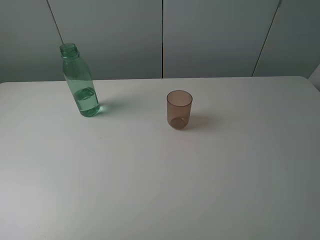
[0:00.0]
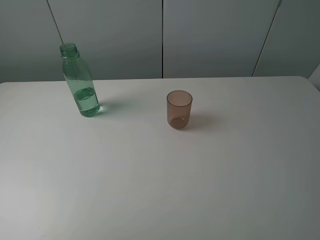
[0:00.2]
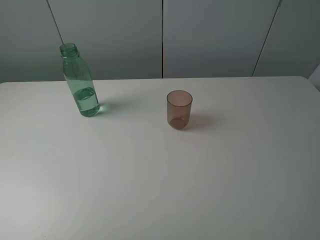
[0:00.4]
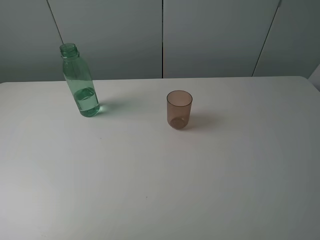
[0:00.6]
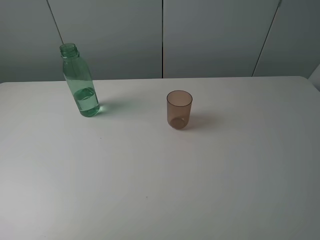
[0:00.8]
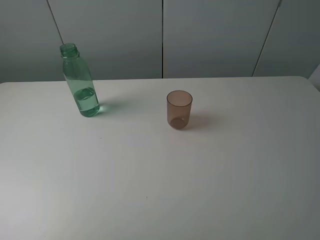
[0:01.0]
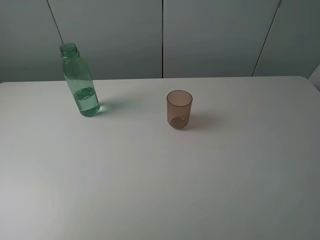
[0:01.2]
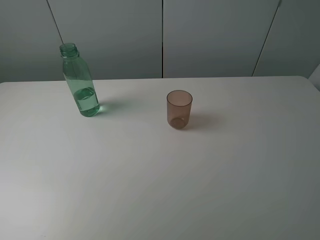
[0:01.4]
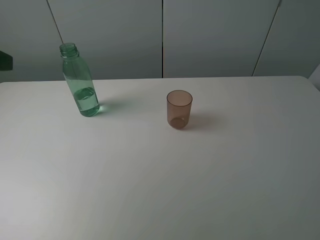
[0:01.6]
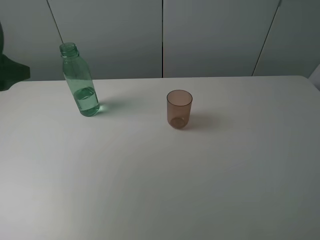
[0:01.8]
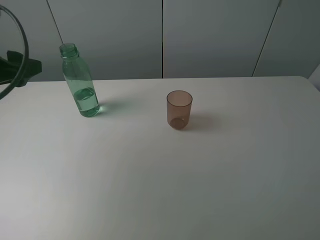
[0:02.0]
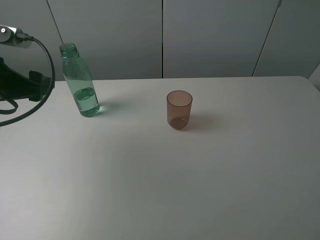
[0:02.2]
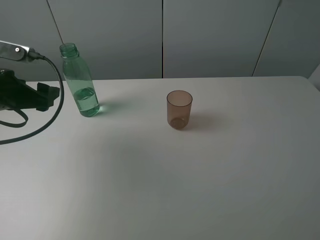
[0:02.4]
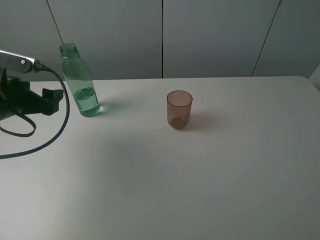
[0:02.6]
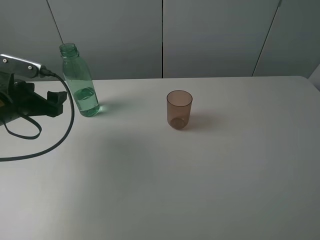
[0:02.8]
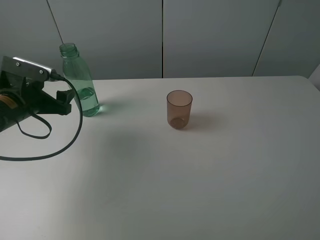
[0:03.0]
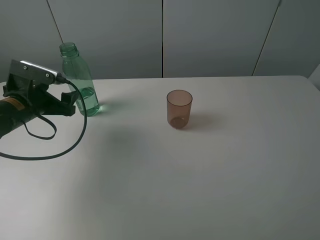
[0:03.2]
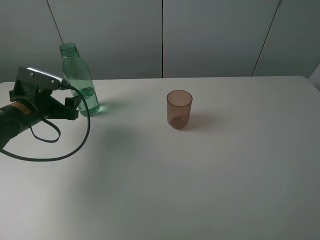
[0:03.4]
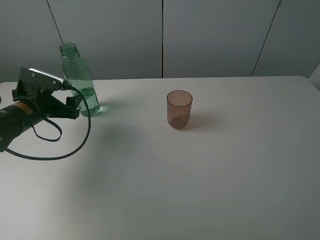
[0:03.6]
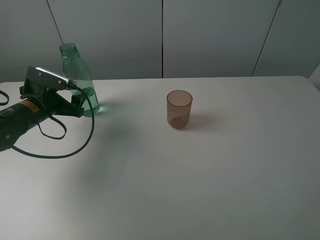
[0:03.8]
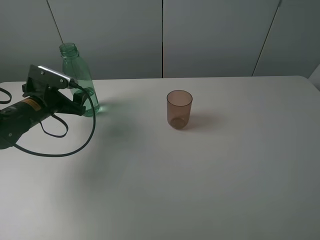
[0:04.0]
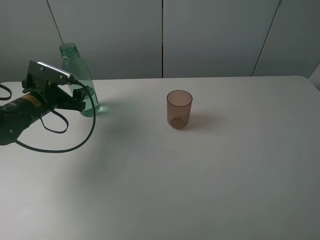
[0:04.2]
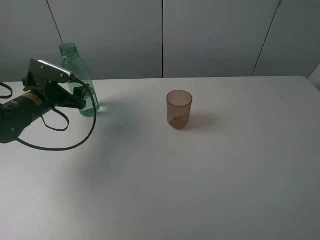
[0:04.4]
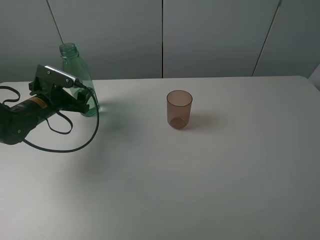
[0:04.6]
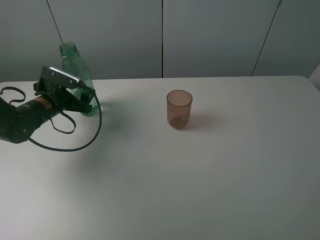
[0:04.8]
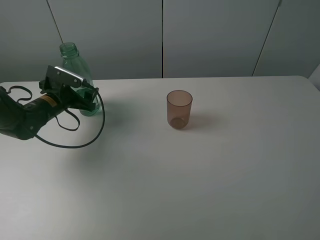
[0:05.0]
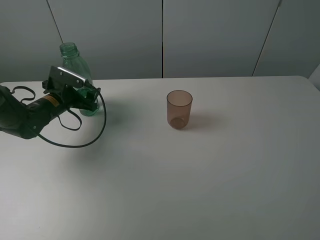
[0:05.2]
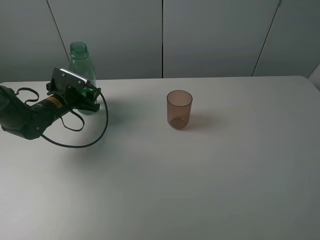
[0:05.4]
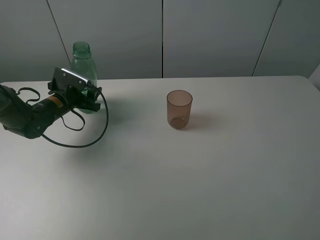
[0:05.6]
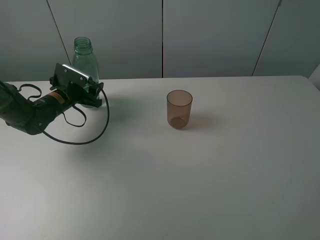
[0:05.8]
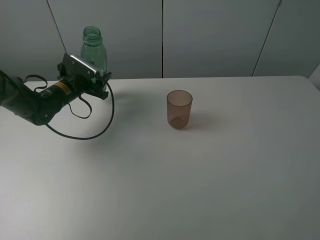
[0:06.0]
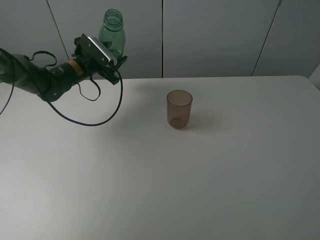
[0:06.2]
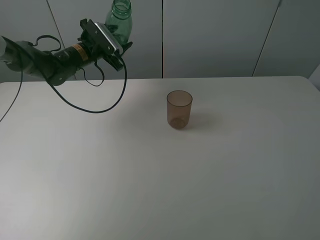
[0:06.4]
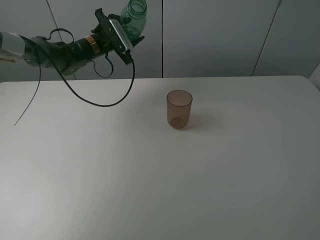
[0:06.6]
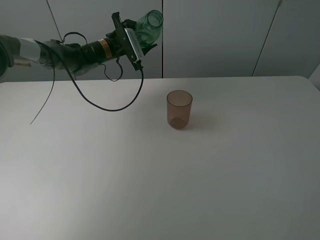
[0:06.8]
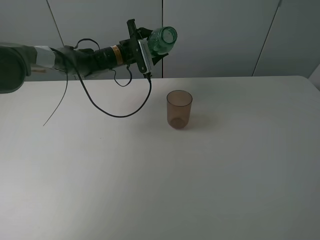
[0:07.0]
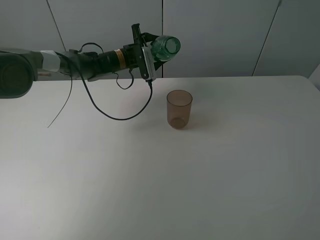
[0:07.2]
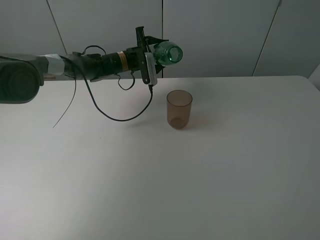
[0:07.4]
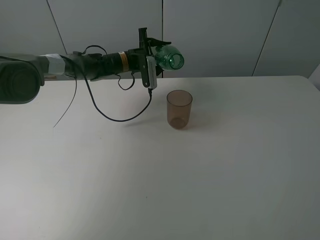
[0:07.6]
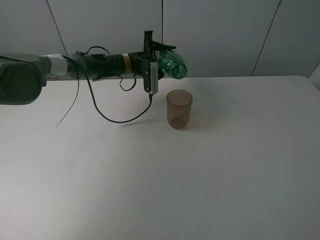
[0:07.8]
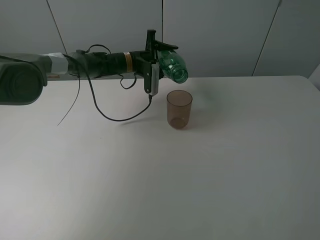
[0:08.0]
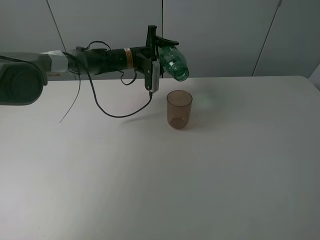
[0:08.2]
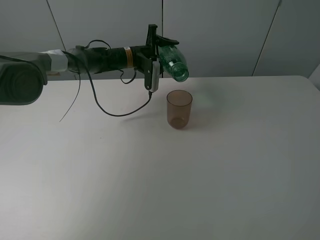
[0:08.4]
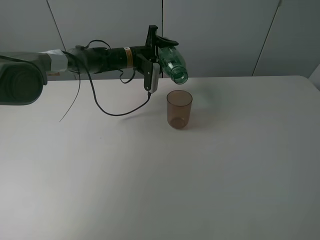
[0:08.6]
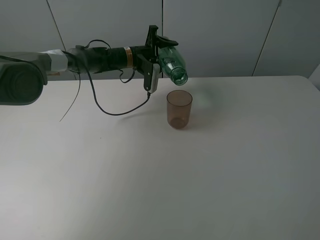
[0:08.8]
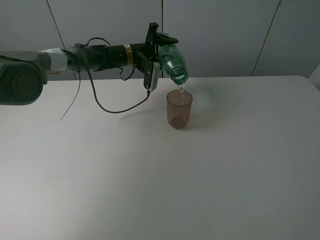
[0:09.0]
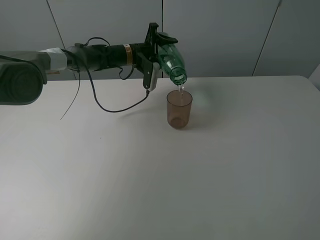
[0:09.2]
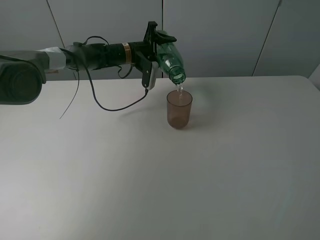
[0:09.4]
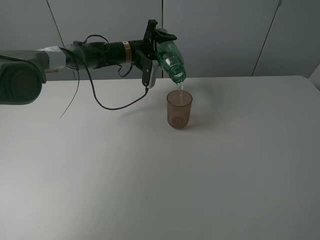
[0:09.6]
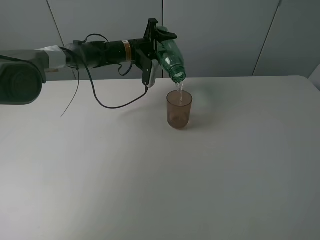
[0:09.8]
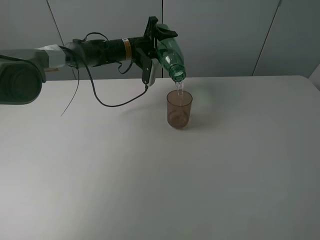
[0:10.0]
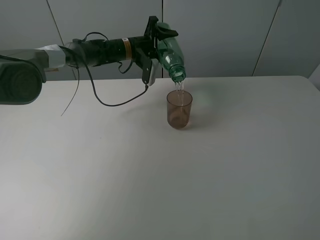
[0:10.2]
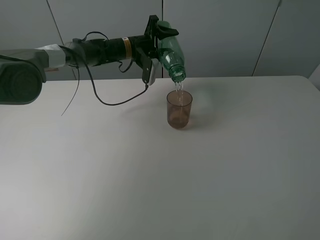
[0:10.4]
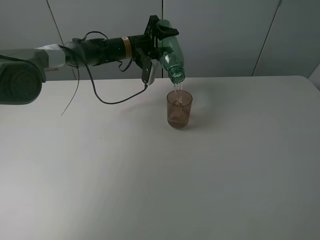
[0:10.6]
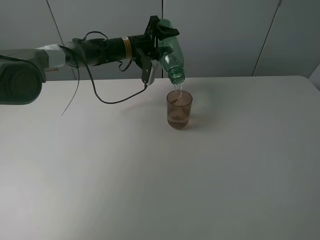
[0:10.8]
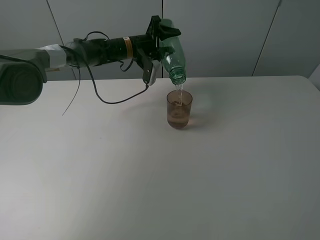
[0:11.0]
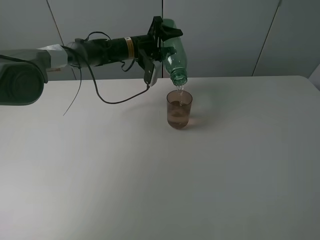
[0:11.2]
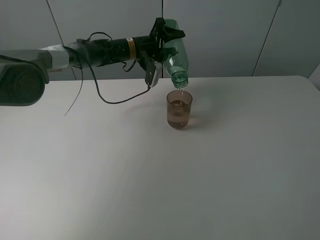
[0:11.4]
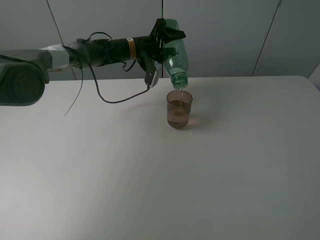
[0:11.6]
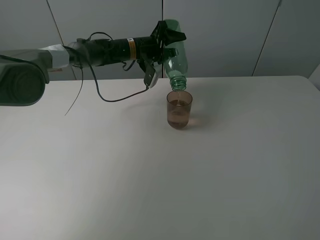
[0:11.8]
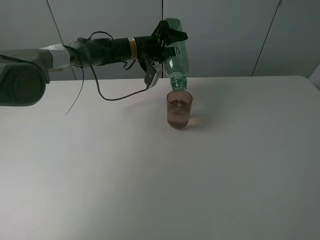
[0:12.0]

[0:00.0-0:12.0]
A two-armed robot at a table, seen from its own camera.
Task of the whole recording: pick up the bottle filled with water and pour it into the pink cup.
Step, 0:00.0 to 0:05.4: Grasp the green bottle with the left gripper.
0:01.6 to 0:03.0: The left gripper shifts some 20 cm downward and forward.
0:03.0 to 0:04.4: The left gripper is displaced forward by about 5 cm.
0:04.4 to 0:06.0: The left gripper goes roughly 10 cm forward, and closes up.
0:06.0 to 0:07.6: The left gripper shifts some 20 cm to the right and forward.
0:09.0 to 0:10.4: There are only small adjustments of the grippers.
0:10.4 to 0:12.0: The grippers move only a little.

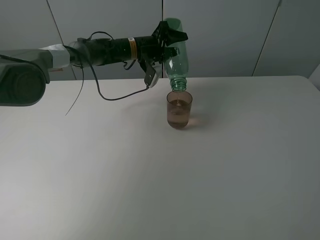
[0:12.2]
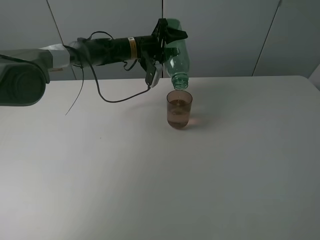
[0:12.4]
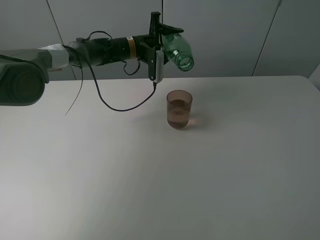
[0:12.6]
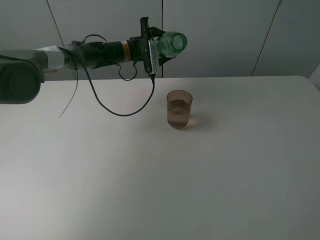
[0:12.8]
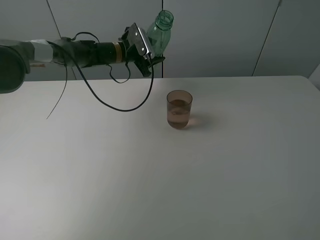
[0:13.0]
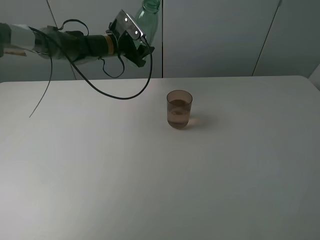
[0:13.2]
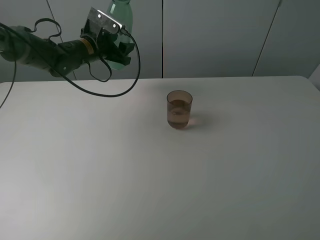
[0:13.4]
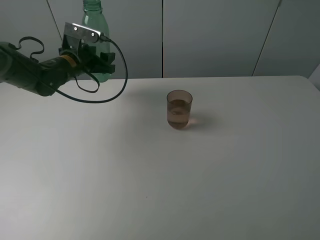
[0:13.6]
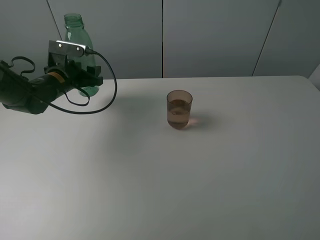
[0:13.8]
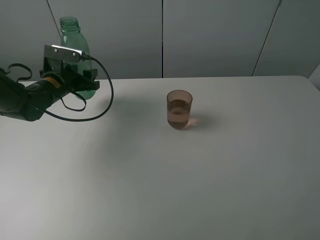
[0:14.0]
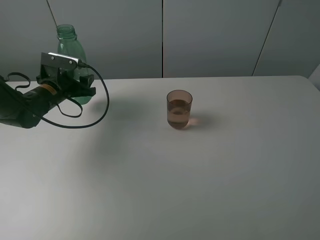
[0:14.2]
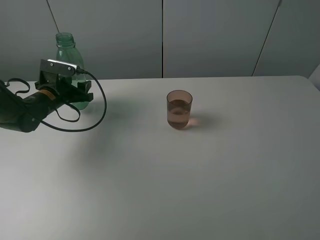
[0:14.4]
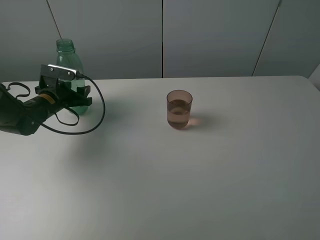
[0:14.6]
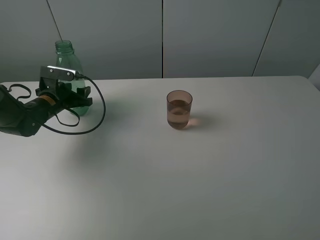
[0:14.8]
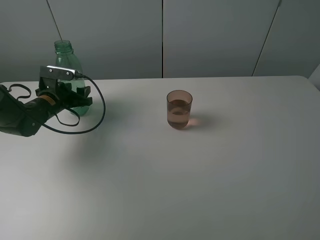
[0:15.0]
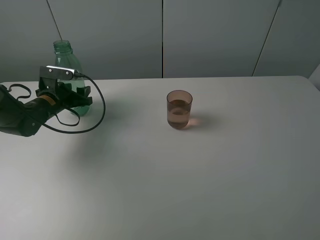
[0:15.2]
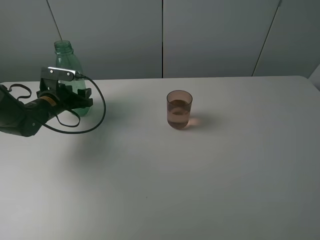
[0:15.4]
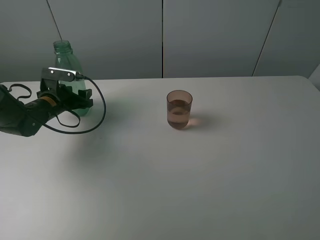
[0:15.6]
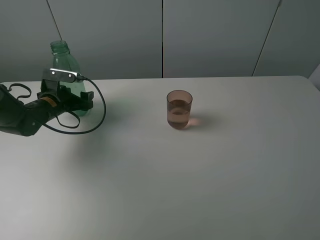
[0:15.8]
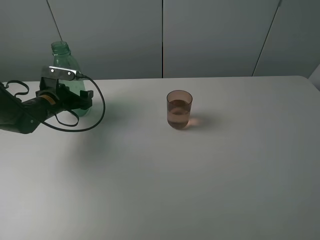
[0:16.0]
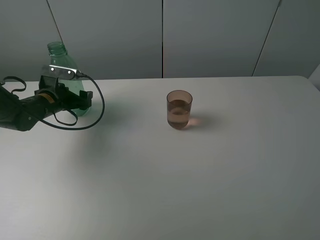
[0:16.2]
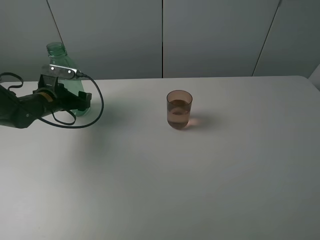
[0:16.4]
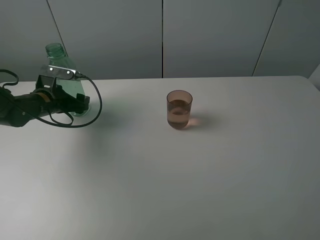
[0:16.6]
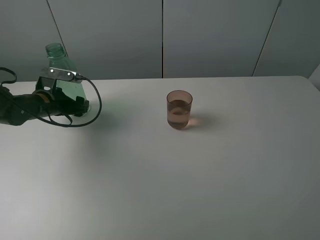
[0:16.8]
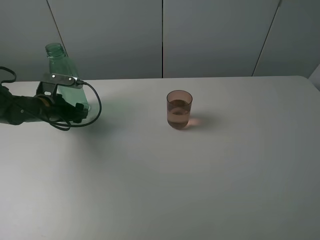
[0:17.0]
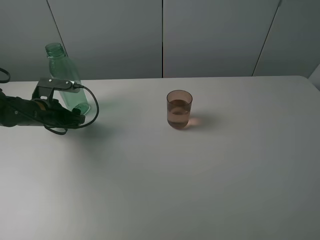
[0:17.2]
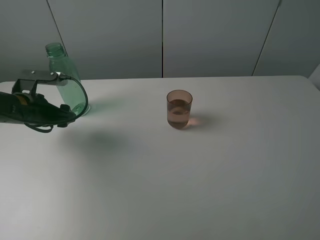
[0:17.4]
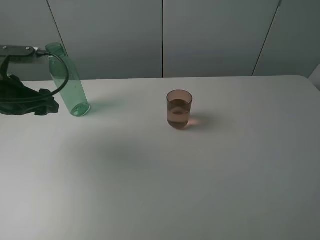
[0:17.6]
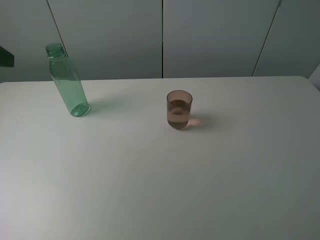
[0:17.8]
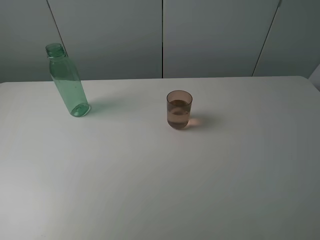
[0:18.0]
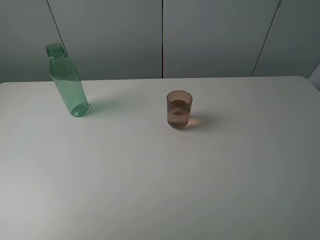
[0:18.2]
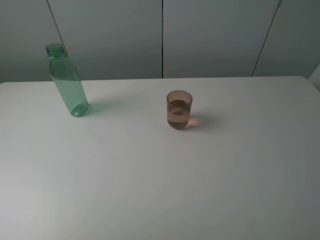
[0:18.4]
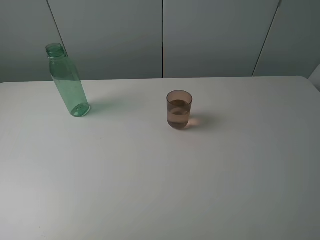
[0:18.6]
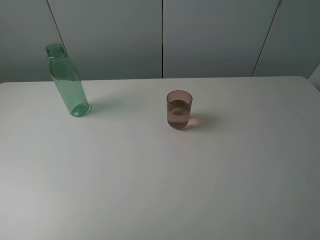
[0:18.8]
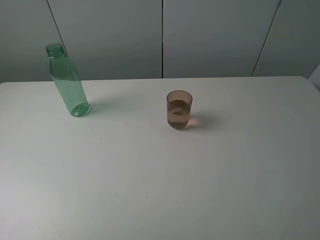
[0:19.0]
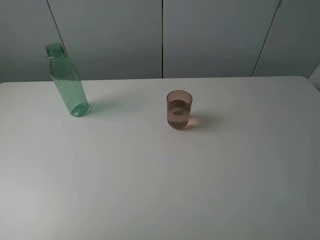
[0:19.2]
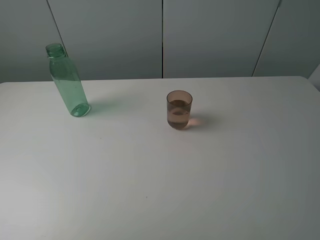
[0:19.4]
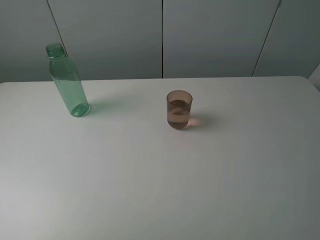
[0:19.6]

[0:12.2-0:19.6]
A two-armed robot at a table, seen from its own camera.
Task of the whole recording: pick up the bottle filled with water and pour it into the pink cup.
Step, 0:12.8 to 0:17.2: Place the green bottle with the left gripper.
0:12.2 to 0:13.6: The left gripper heads to the left and backward, covering about 20 cm.
0:13.6 to 0:15.2: The left gripper moves downward and to the left, roughly 10 cm.
0:15.2 to 0:16.6: The left gripper opens its fingers.
0:16.6 to 0:18.2: The left gripper shifts some 40 cm backward and upward.
